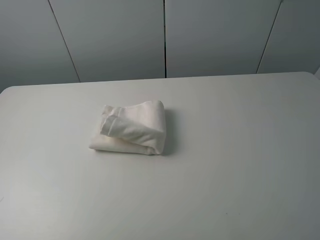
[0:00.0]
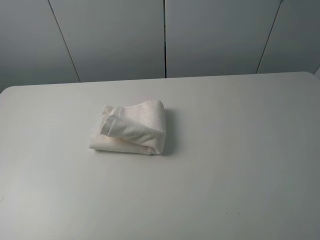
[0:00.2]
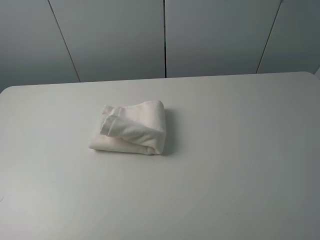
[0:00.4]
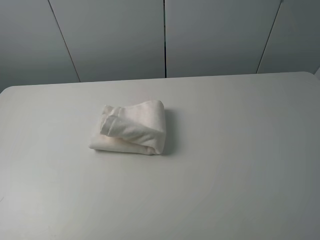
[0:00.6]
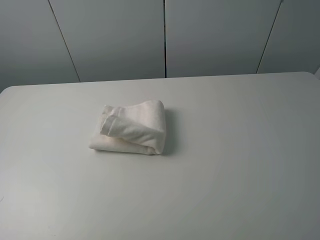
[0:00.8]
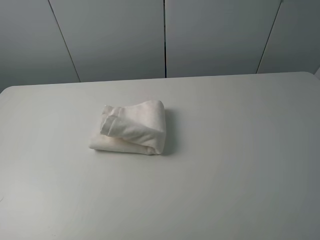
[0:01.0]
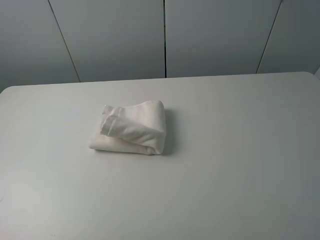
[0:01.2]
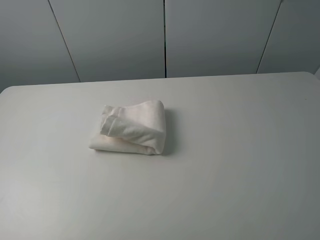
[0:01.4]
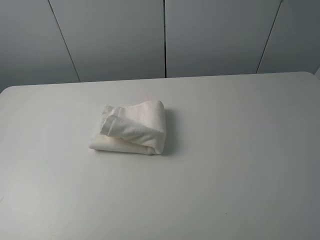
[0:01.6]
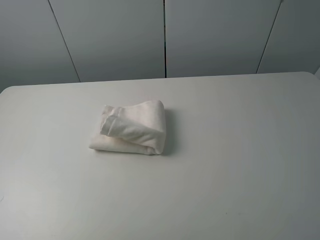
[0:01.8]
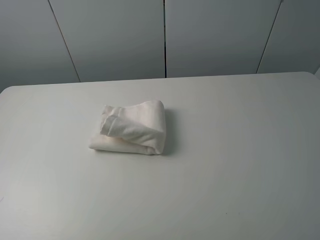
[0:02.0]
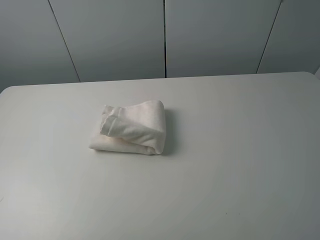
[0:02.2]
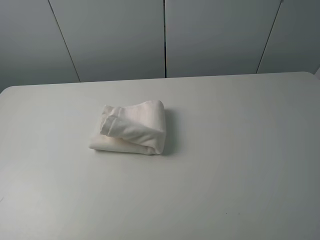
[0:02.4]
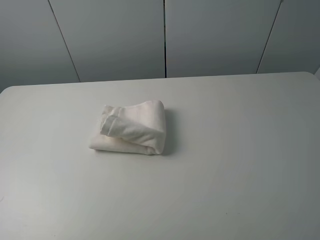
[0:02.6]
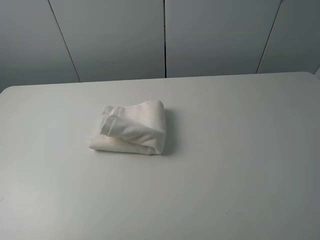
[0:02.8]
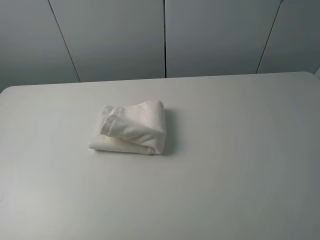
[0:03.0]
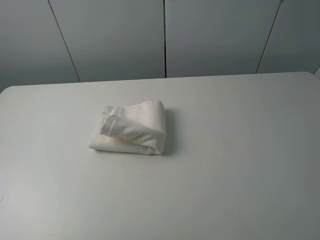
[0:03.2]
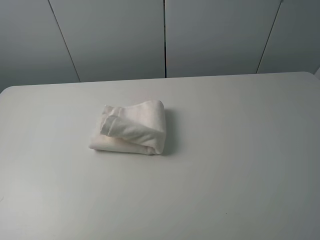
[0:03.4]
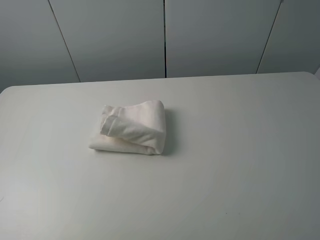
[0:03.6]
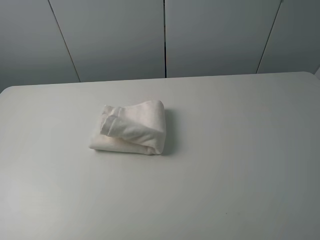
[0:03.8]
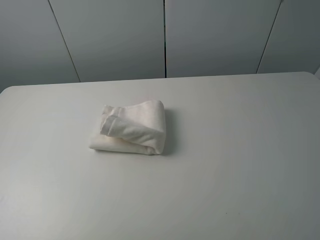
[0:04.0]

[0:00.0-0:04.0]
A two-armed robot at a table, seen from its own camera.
Task of the whole recording: fold the towels on the table.
0:01.4 to 0:04.0: The two grippers keep their place.
